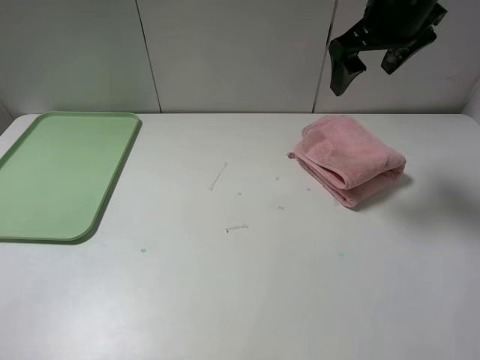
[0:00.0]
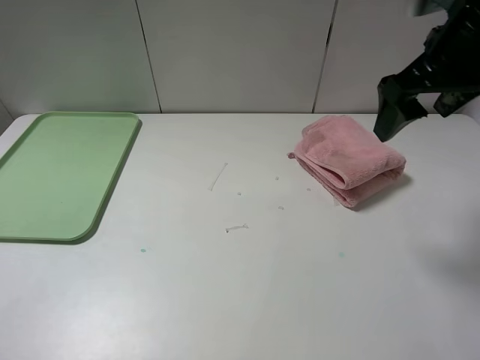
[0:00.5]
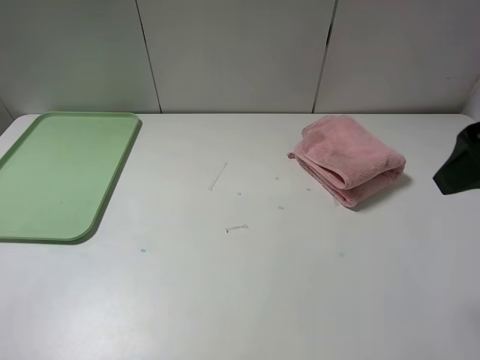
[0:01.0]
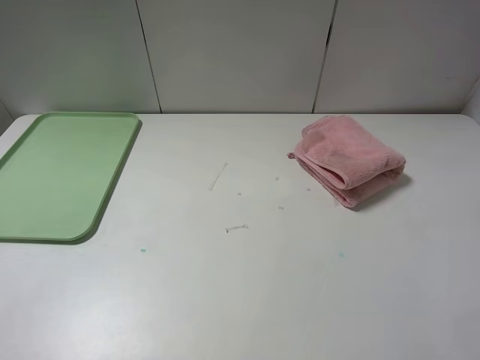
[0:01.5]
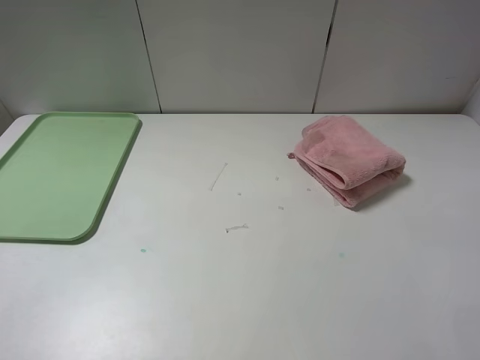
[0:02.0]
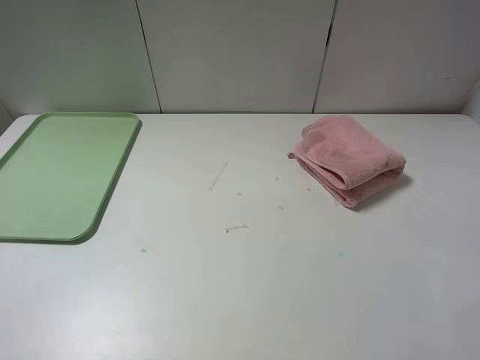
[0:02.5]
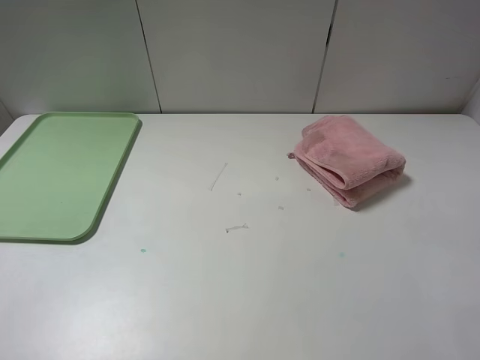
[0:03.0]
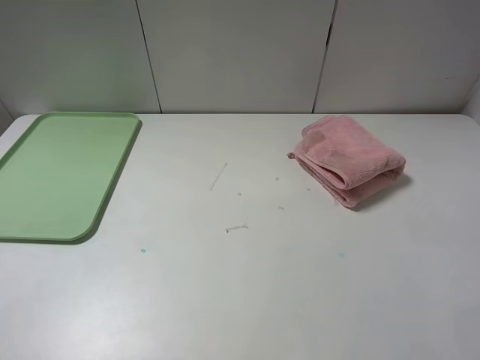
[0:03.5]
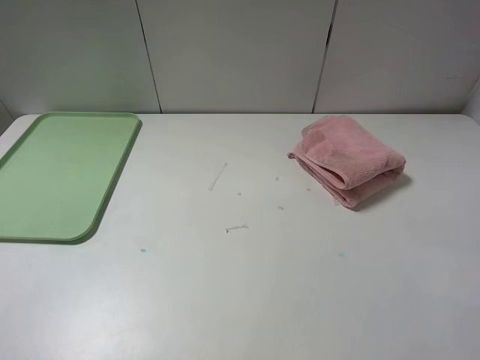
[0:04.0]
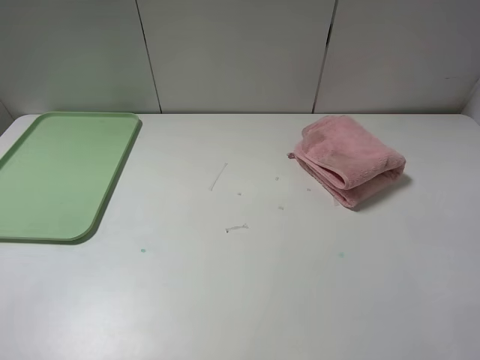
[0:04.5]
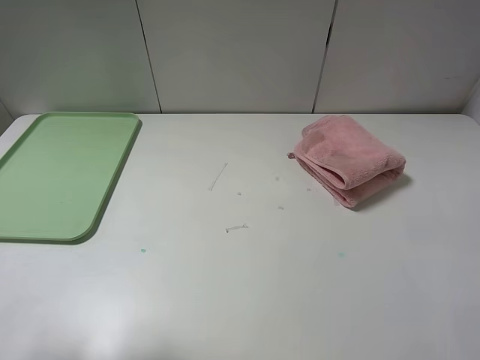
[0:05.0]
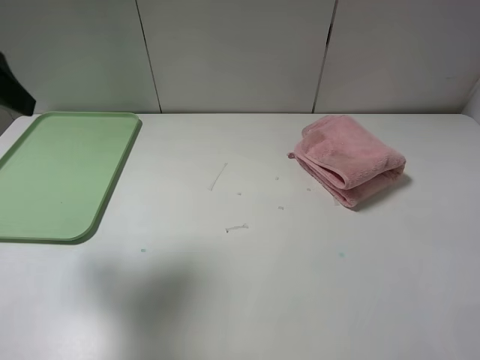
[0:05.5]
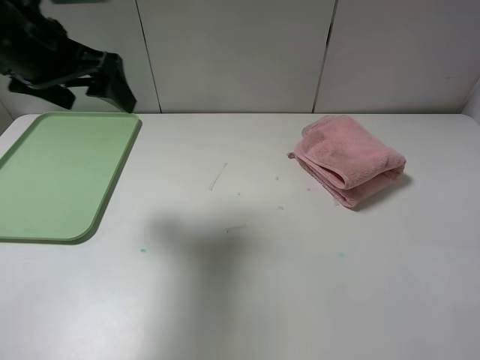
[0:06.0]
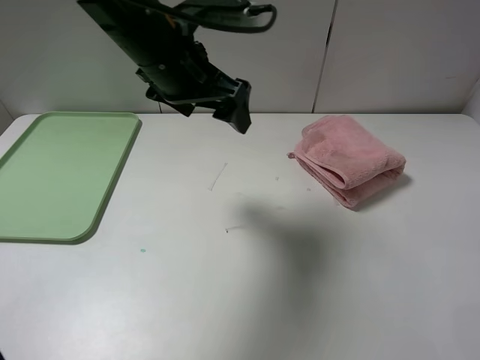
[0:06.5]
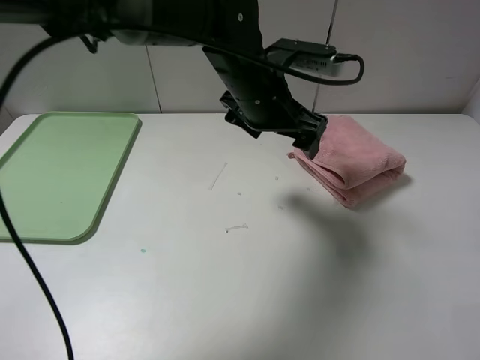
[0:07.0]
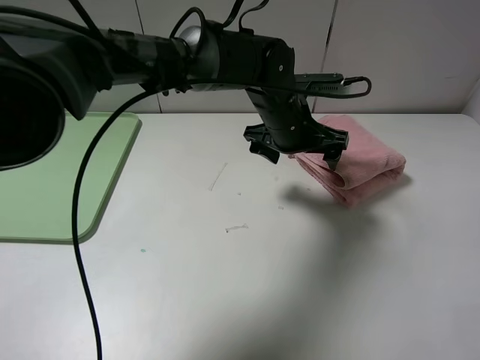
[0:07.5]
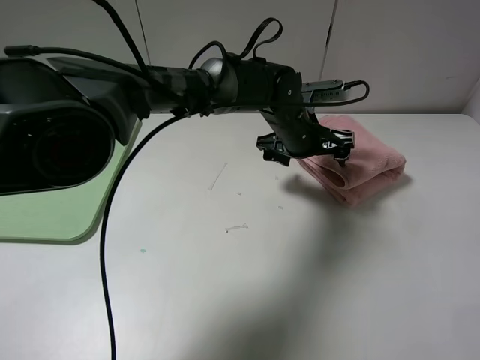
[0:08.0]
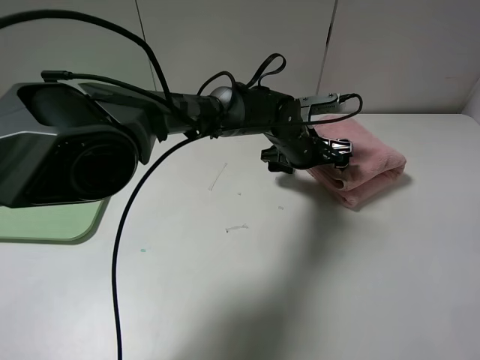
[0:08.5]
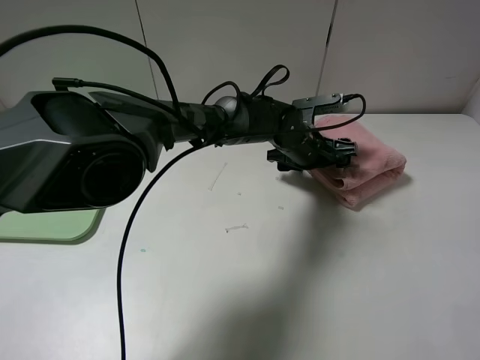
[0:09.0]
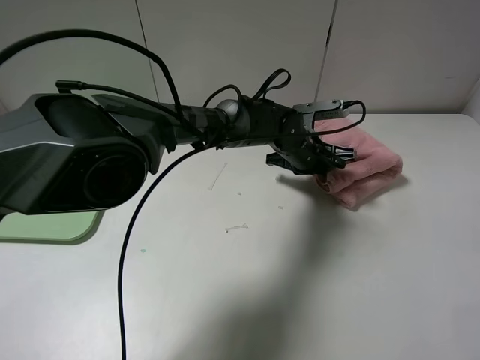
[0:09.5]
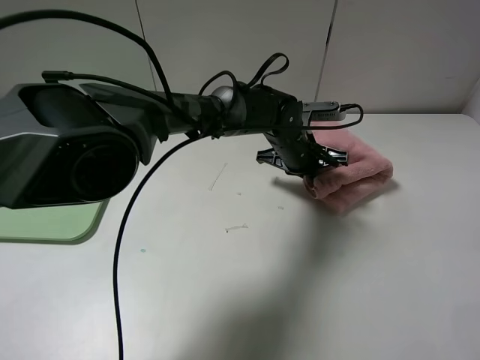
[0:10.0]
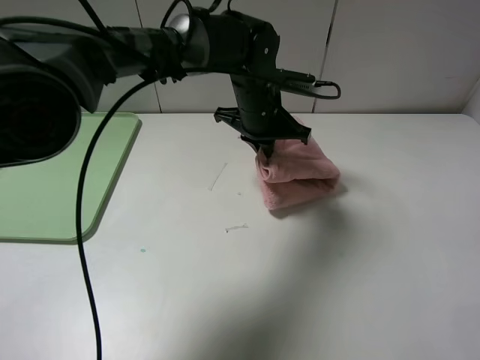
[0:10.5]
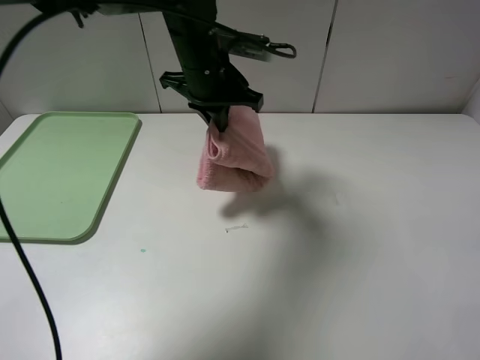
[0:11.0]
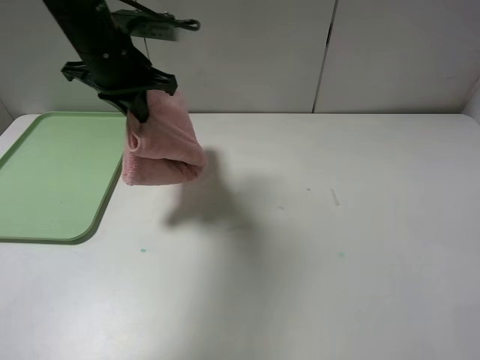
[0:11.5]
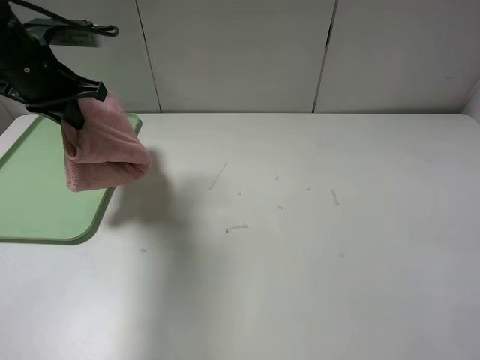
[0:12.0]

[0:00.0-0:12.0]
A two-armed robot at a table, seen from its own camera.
0:00.0 to 0:02.0: The right gripper moves backward, some 35 cm.
0:02.0 to 0:04.0: The two grippers keep their place.
0:04.0 to 0:06.0: The left gripper heads forward, covering about 30 cm.
0:06.0 to 0:08.0: The left gripper travels to the right and downward by about 35 cm.
0:08.0 to 0:10.0: The left gripper closes.
0:10.0 to 0:12.0: The left gripper heads to the left and upward, covering approximately 40 cm.

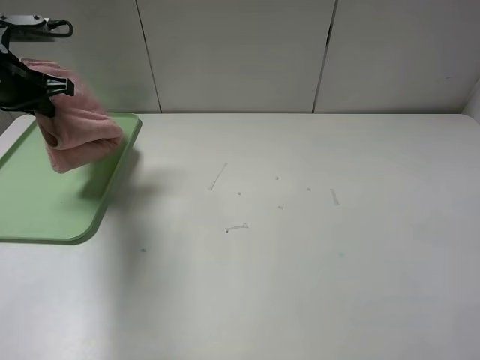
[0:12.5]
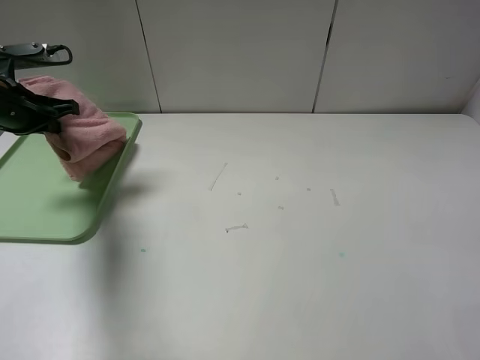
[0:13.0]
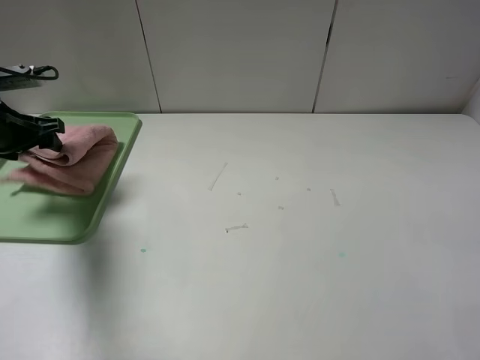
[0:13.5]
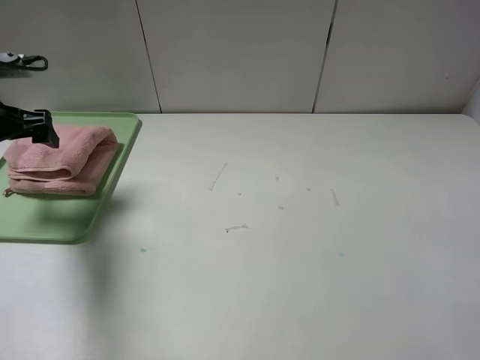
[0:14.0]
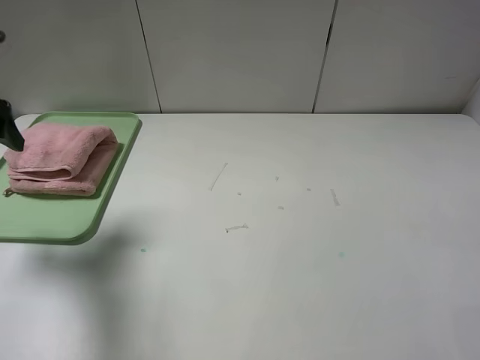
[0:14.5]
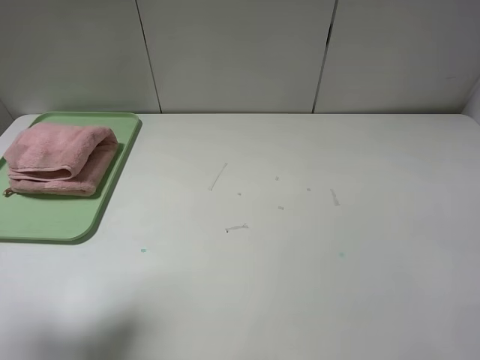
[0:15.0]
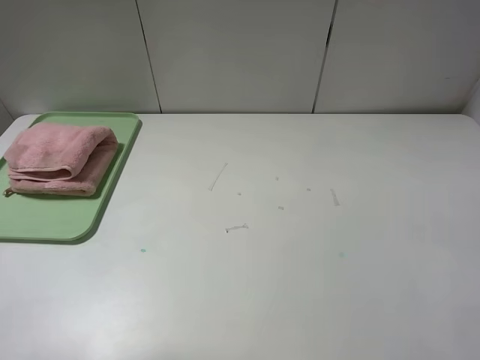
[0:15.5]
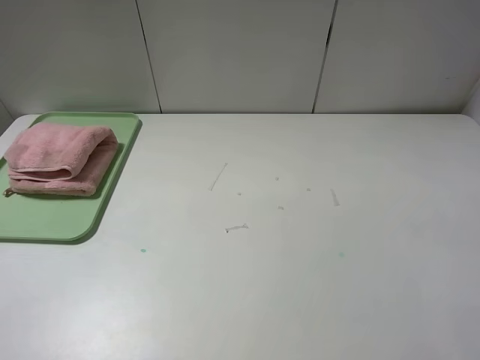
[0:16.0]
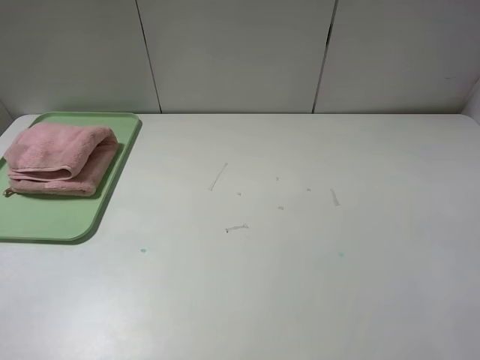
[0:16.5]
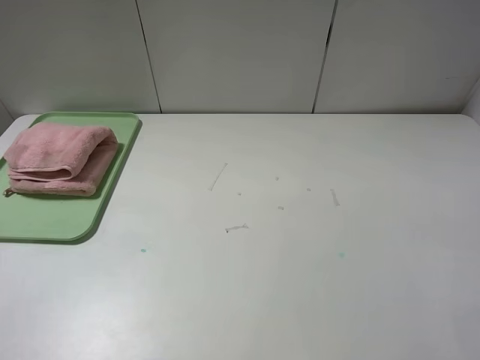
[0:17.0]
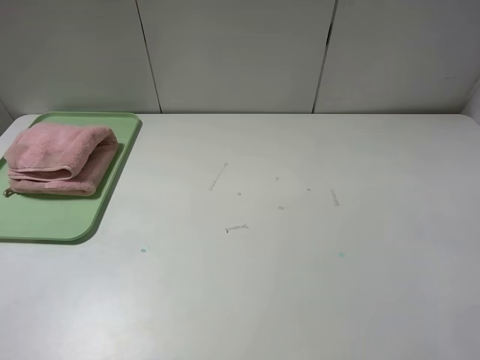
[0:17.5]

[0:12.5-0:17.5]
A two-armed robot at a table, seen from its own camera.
0:12.5 to 0:15.0: The left gripper travels backward and upward by about 25 cm, and opens up.
0:15.0 to 0:17.5: The left gripper is displaced backward and downward by approximately 15 cm.
